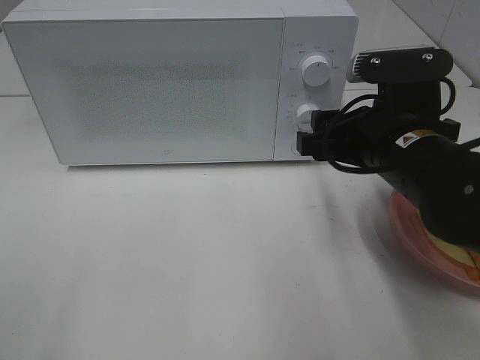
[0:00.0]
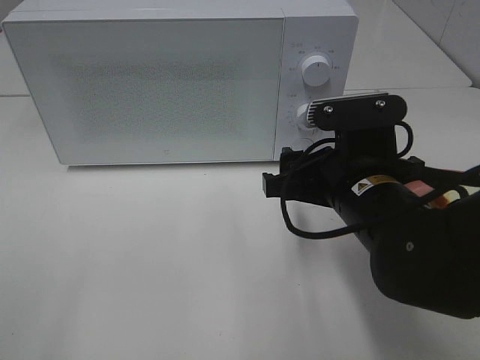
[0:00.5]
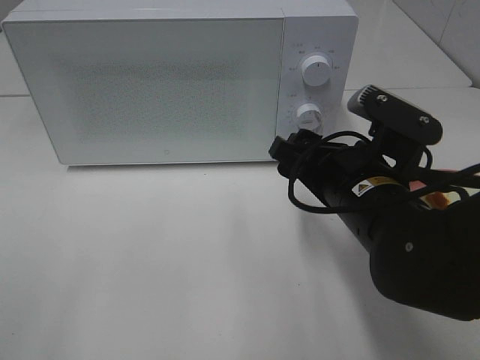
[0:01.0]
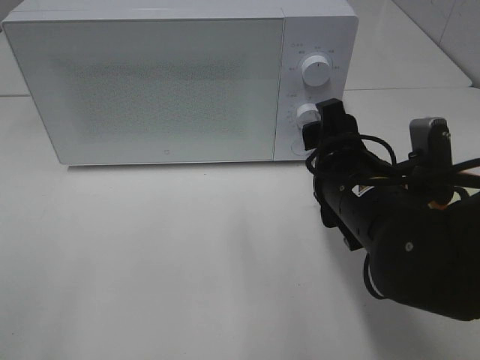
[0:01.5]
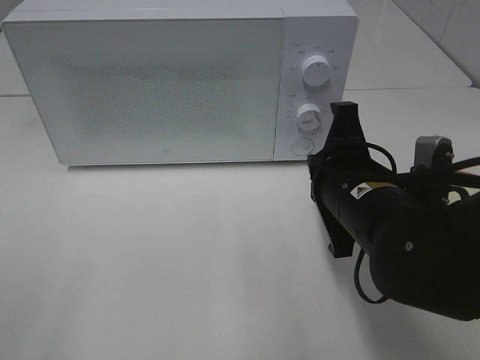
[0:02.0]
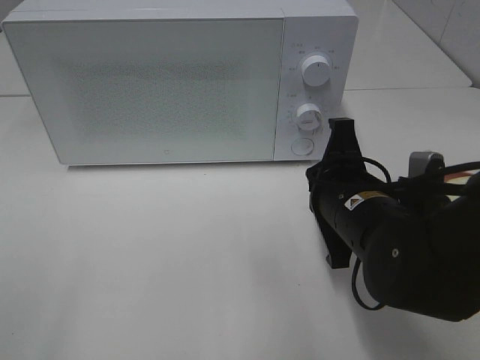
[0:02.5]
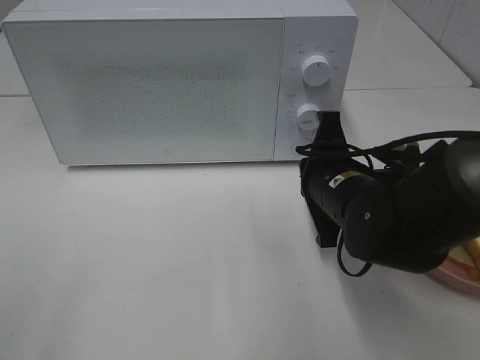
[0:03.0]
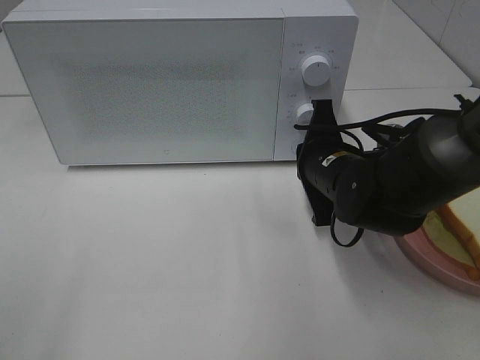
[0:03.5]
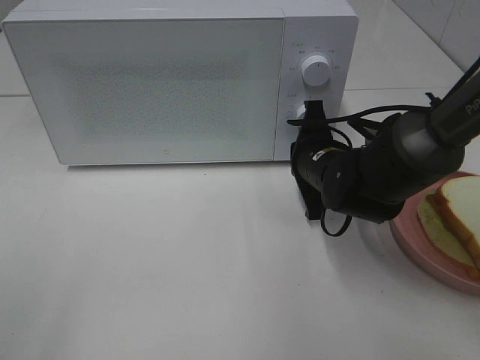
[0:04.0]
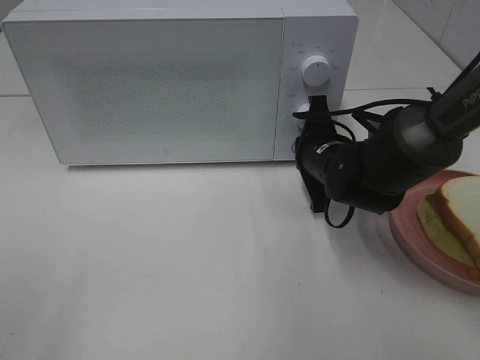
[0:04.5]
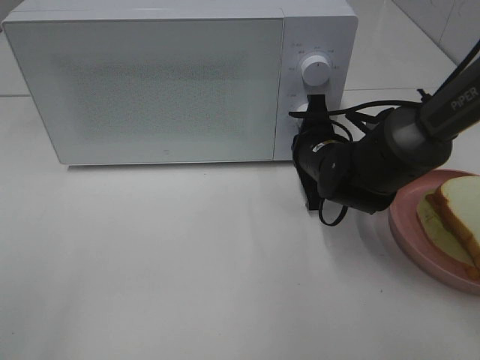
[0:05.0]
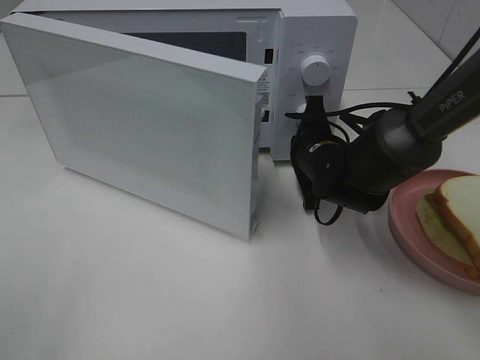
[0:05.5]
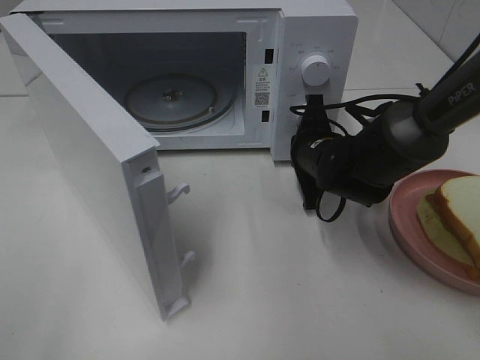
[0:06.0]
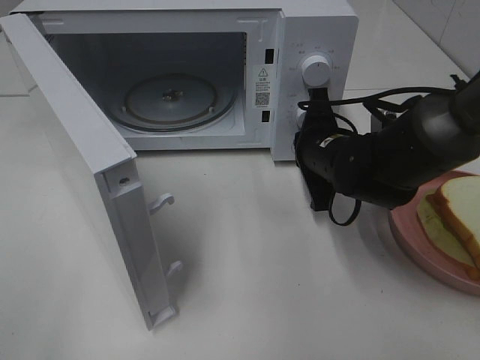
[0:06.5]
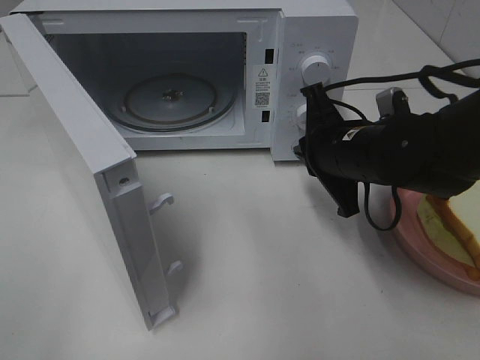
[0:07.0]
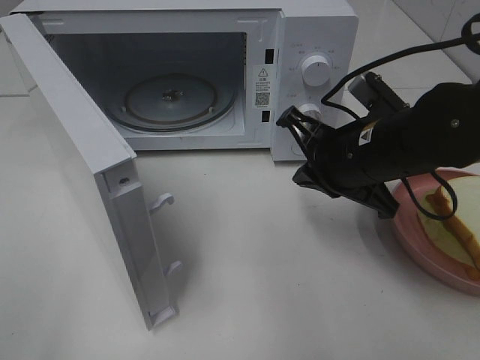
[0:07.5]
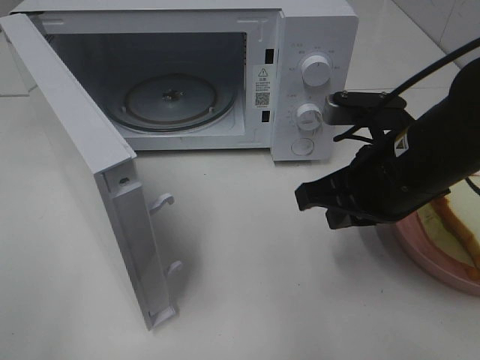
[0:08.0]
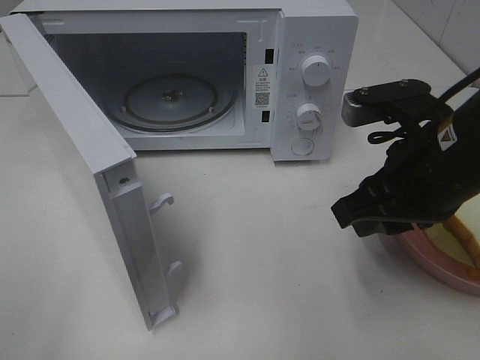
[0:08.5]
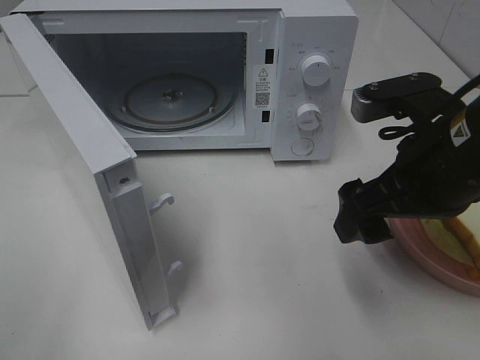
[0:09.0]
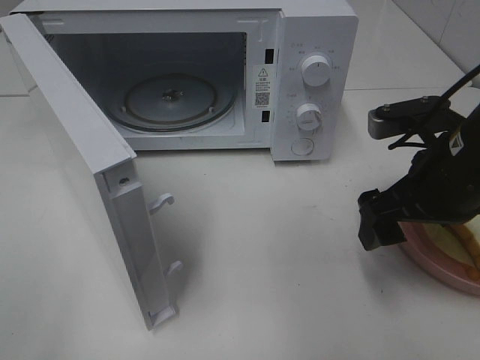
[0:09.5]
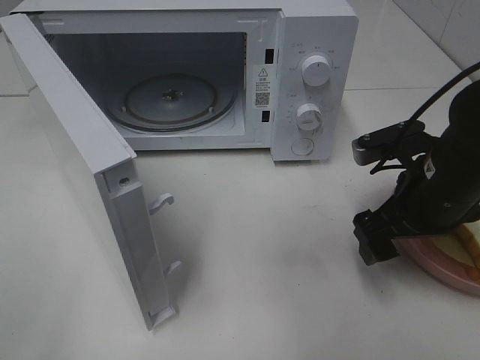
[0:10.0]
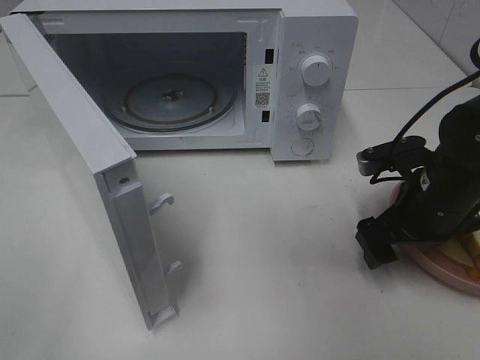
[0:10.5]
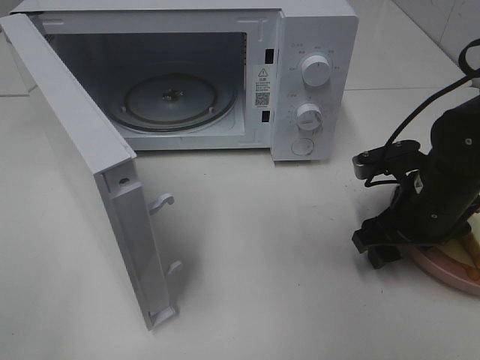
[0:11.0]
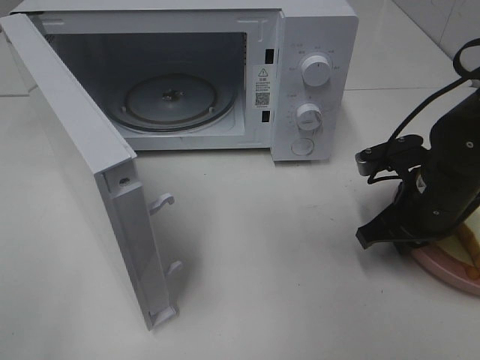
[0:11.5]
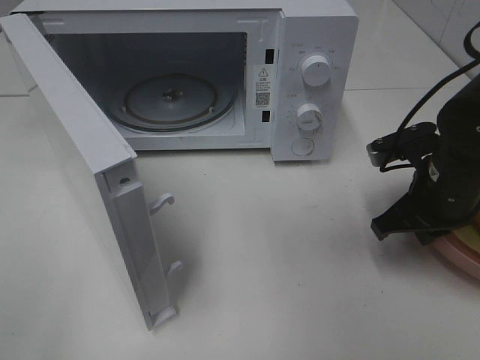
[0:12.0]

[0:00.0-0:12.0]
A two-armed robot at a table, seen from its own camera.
Task of the whole recording: Heat Sandwich.
Step, 0:00.0 to 0:06.5: Right hand: press the switch.
Step, 0:07.0 to 0:12.0: Right hand: grab the plate with the sandwich.
0:00.0 to 0:02.0: The right gripper changes place by some 5 cm, and closes up.
0:02.0 to 0:04.0: The right gripper goes roughly 15 cm forward and downward.
0:06.0 to 0:08.0: The right gripper heads backward and upward, covering roughly 15 cm.
0:08.0 to 0:10.0: The right gripper ends up about 5 cm from where it was, and opens up.
0:10.0 to 0:12.0: The right gripper closes.

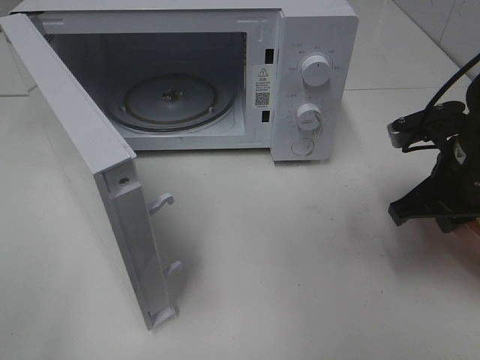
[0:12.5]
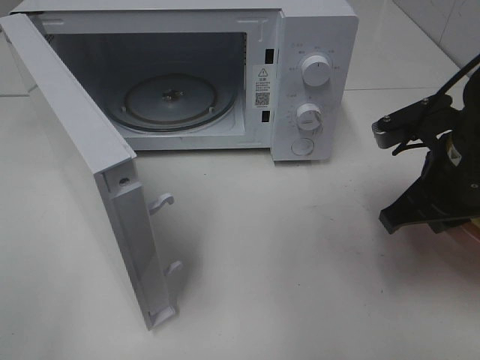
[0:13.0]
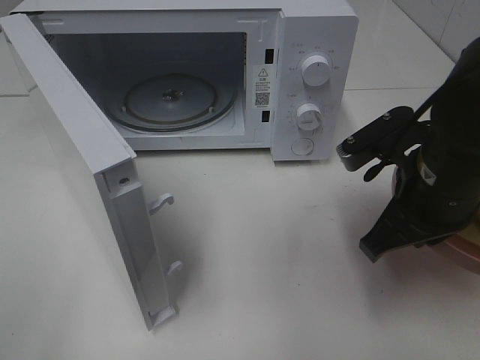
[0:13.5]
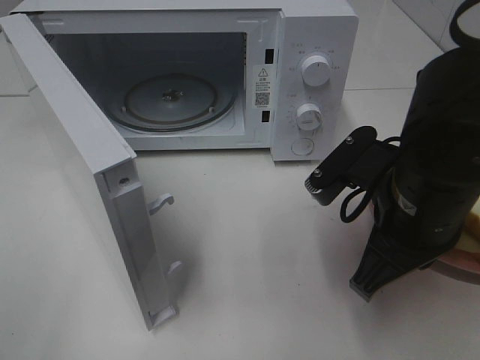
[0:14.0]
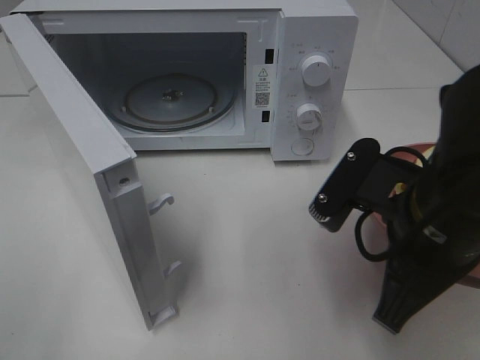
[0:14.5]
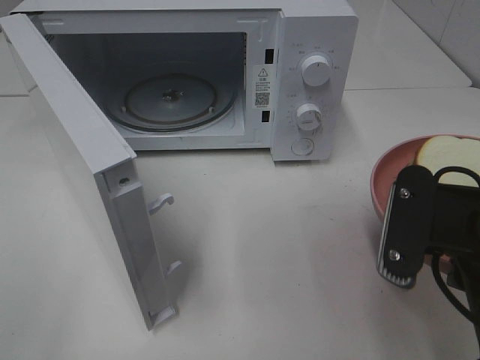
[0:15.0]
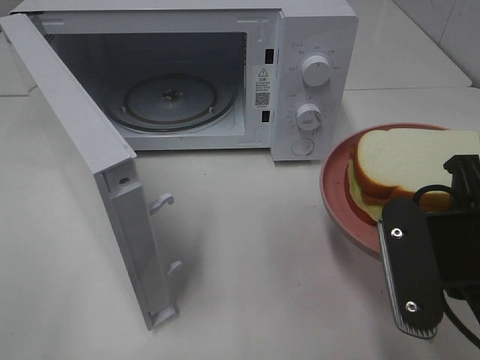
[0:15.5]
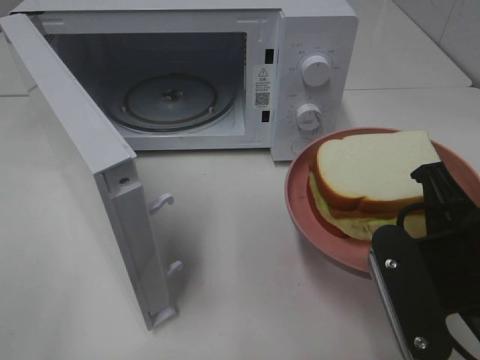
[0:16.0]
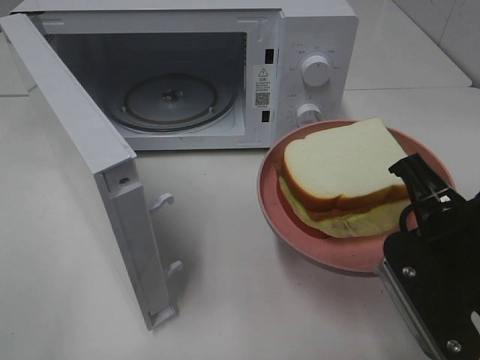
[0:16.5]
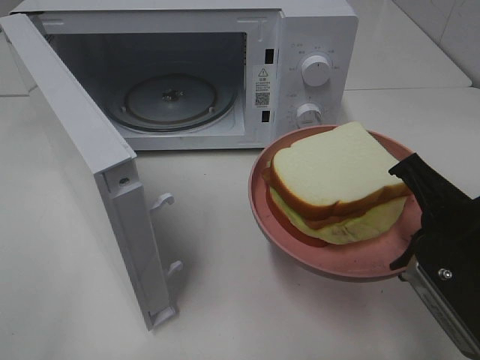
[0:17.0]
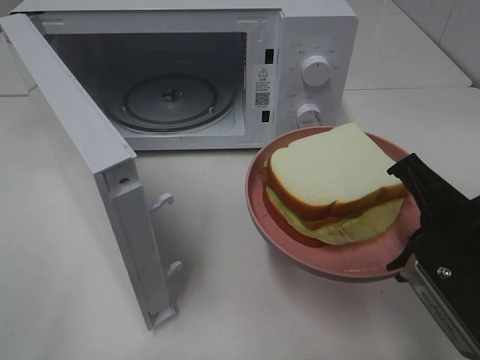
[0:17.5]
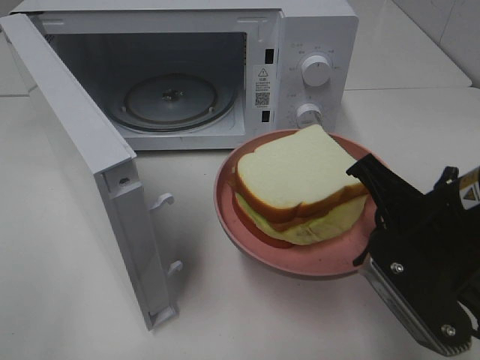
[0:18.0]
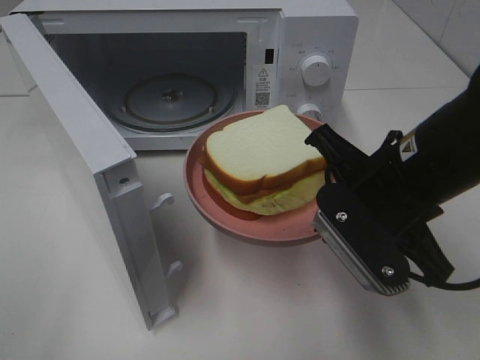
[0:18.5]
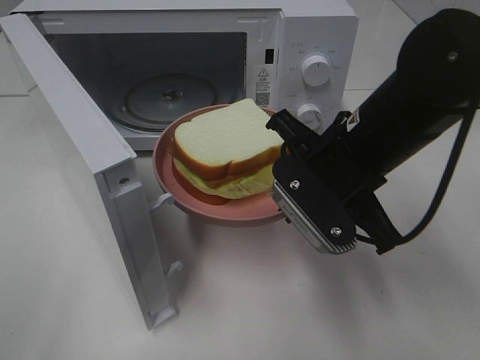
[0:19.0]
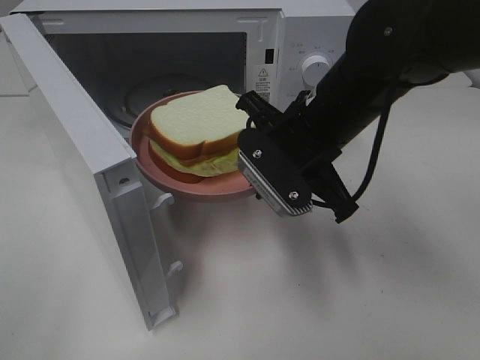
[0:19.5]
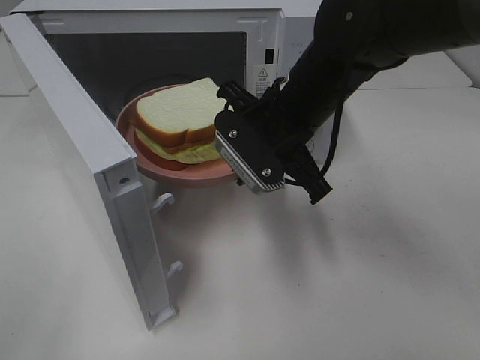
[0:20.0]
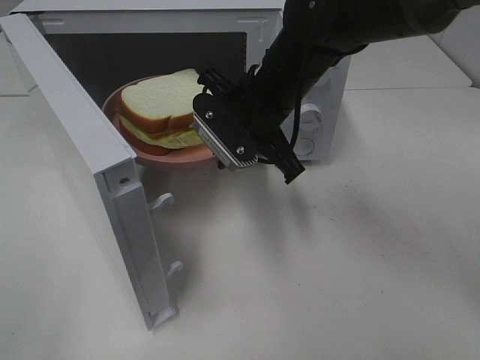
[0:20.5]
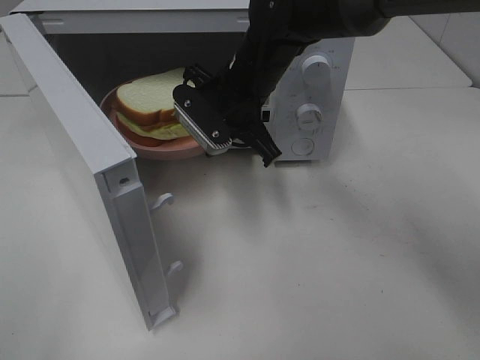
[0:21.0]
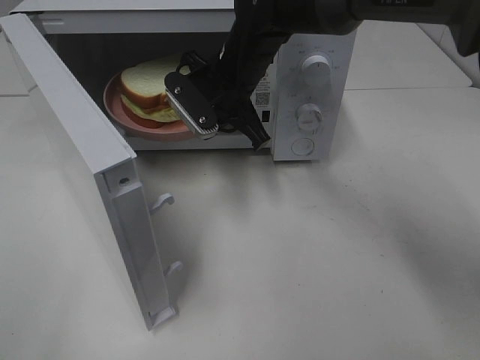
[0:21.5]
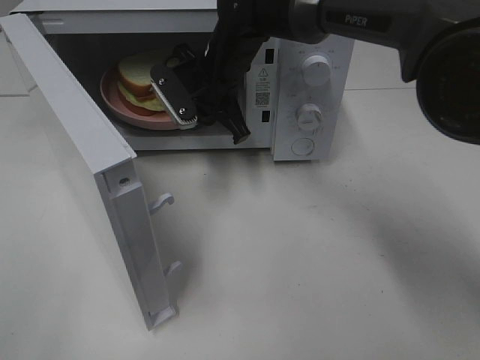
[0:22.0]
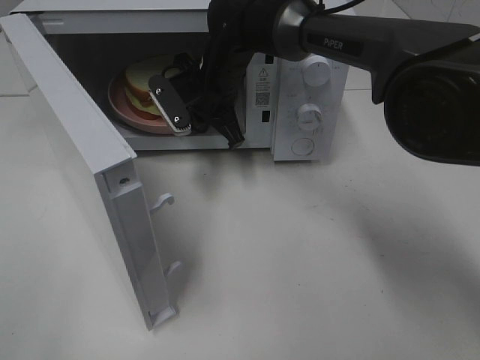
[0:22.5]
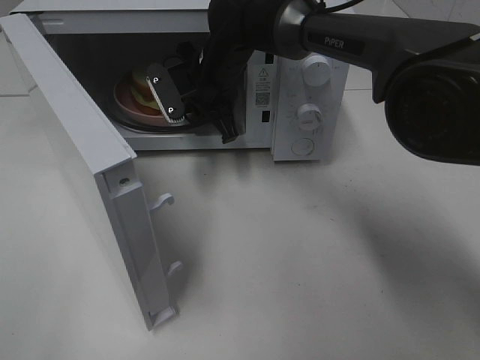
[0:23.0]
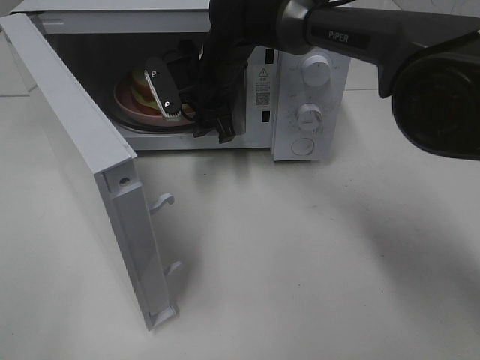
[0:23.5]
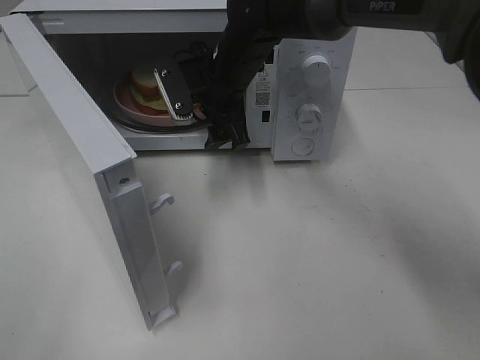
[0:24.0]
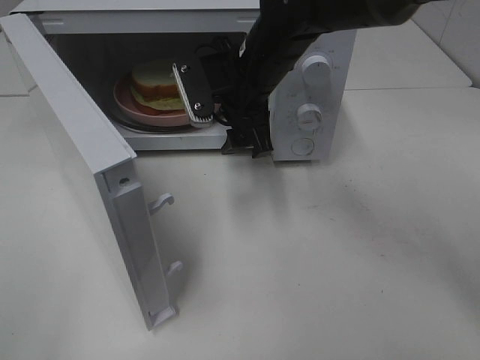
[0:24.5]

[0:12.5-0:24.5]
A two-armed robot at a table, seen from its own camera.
Task of the whole recording: Heat Sandwich.
Step, 0:12.5 to 0:23.5: Right hand: place the plate in the microwave.
0:12.5 to 0:14.5: The right gripper is displaced backward and to the left by about 15 cm.
0:16.5 to 0:18.5: The right gripper shifts roughly 5 cm forward.
0:18.5 to 0:20.5: The right gripper travels forward and to the left by some 15 cm.
0:20.5 to 0:22.5: The right gripper shifts some 10 cm forward and to the left.
0:22.5 to 0:24.5: The right gripper goes approximately 10 cm backward, and opens.

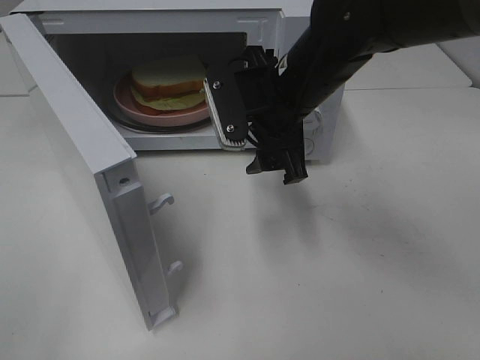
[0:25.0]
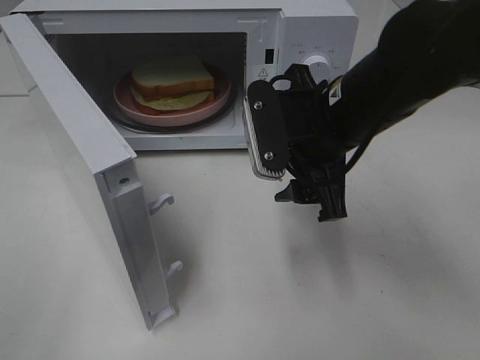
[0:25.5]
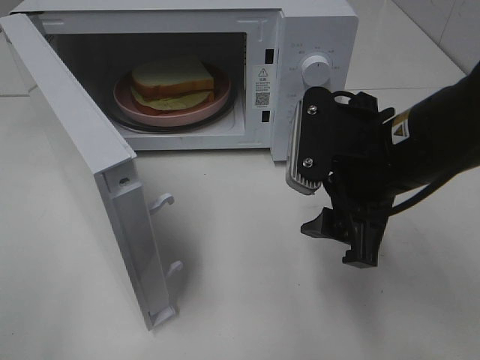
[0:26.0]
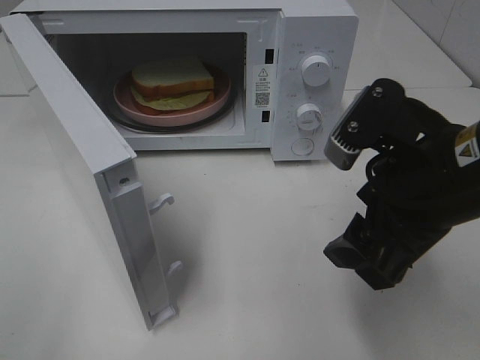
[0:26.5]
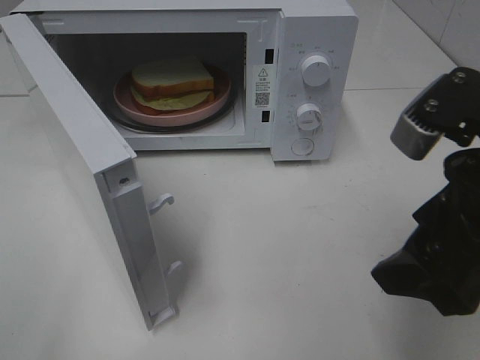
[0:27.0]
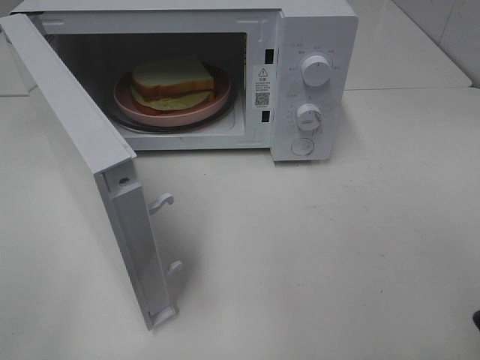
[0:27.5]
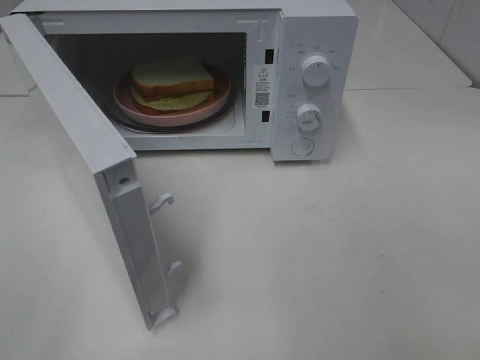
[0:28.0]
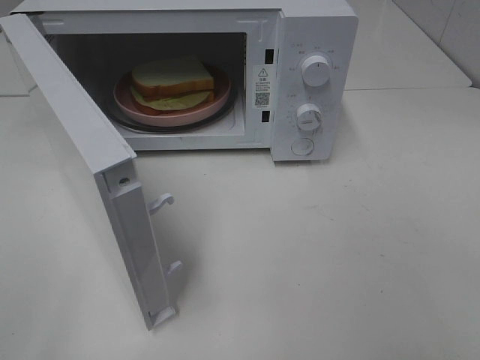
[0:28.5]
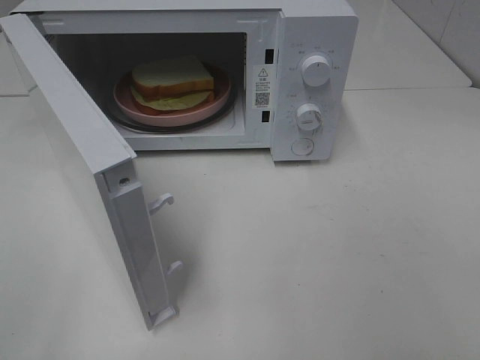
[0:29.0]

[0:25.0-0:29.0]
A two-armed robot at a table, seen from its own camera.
Task of the whole recording: Heat Sandwich.
0:25.0 to 0:27.0: The right gripper heads backward and to the right, covering roughly 20 cm.
0:27.0 to 0:29.0: The right gripper travels backward and to the right by approximately 20 cm.
